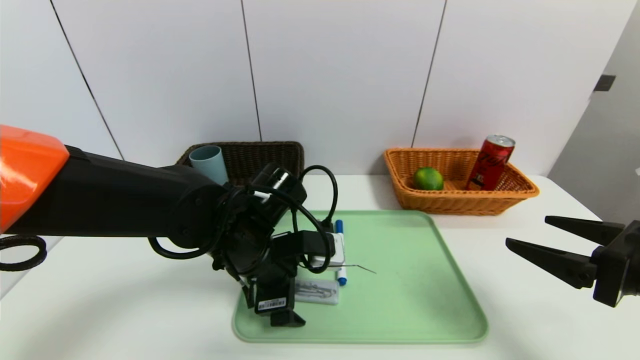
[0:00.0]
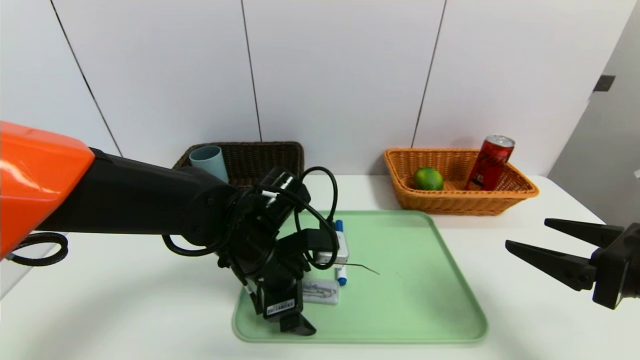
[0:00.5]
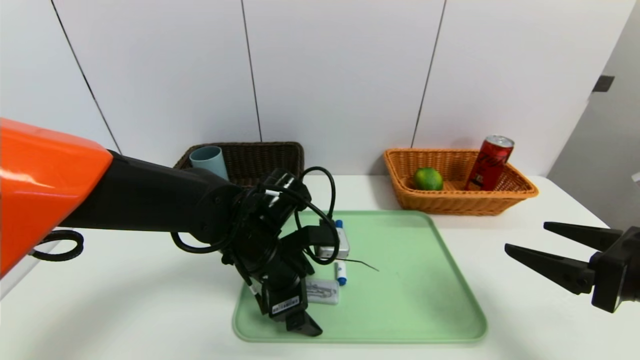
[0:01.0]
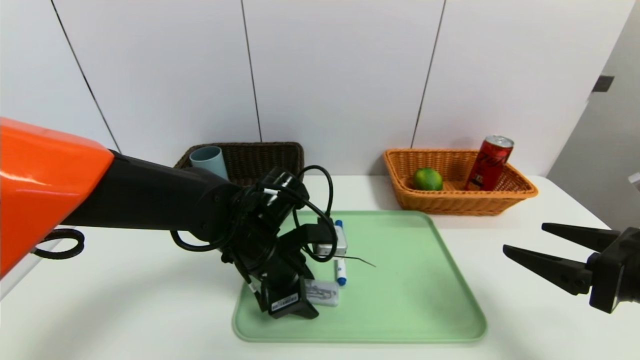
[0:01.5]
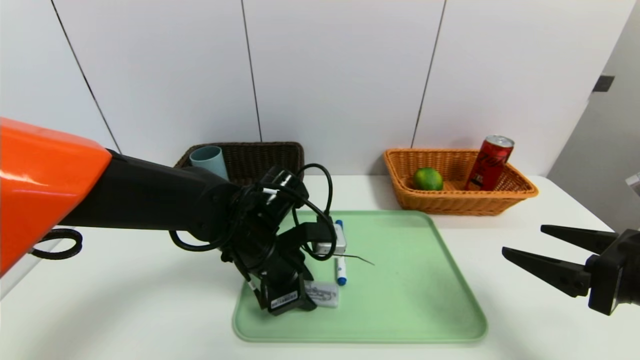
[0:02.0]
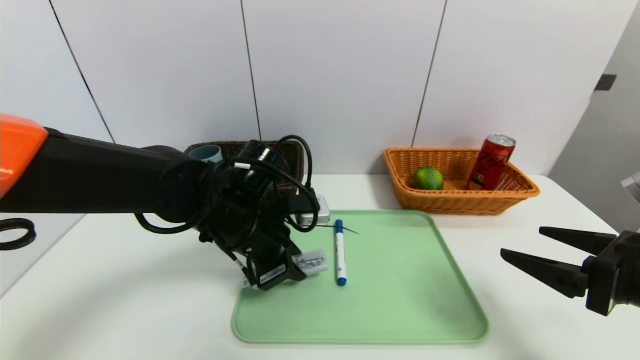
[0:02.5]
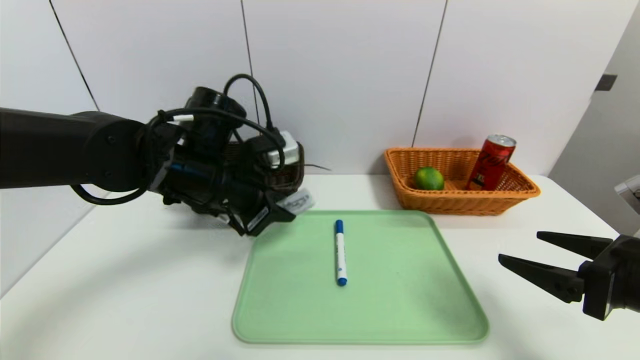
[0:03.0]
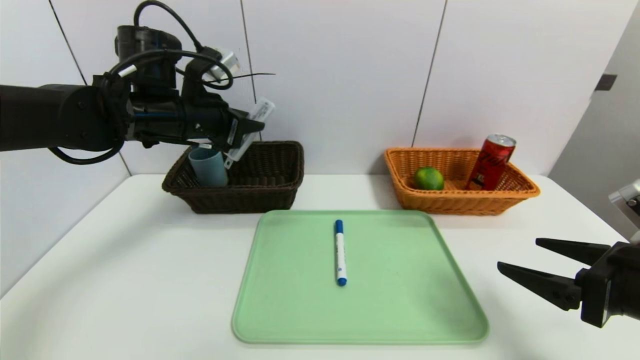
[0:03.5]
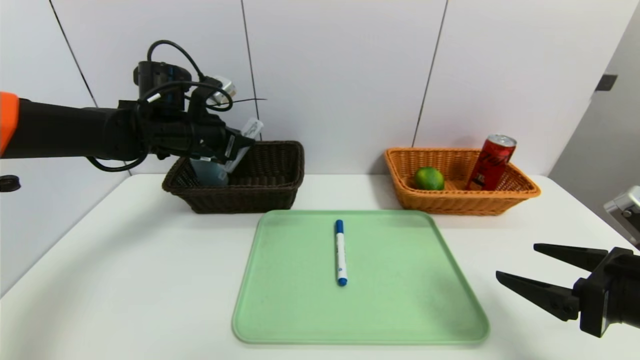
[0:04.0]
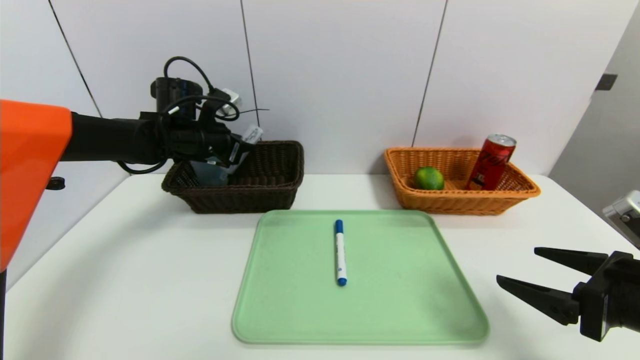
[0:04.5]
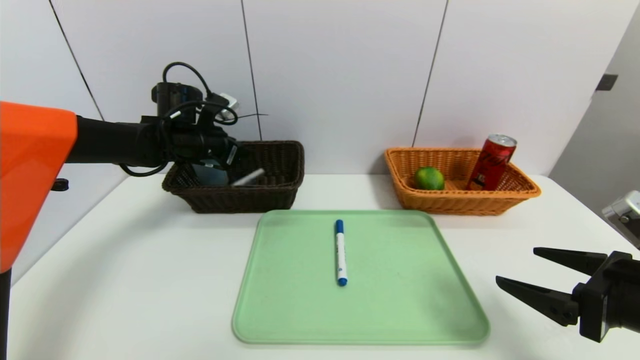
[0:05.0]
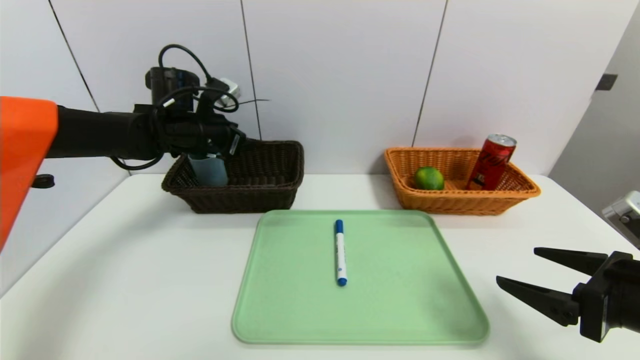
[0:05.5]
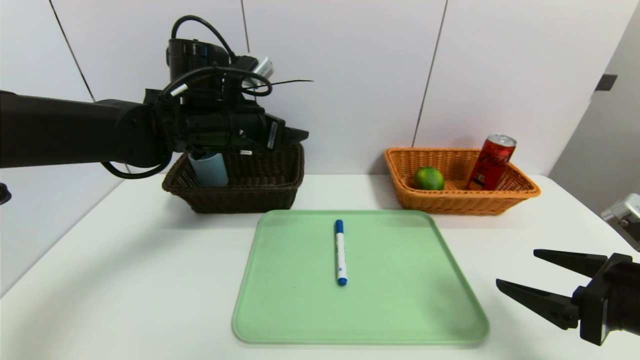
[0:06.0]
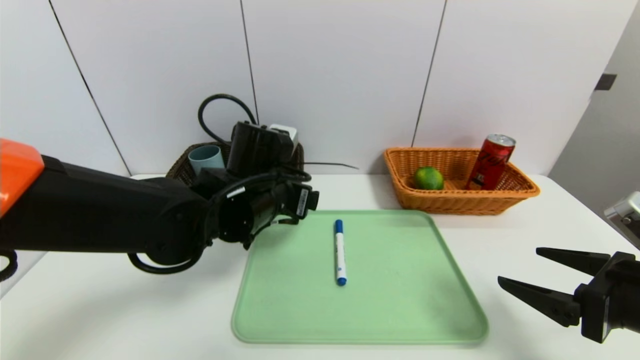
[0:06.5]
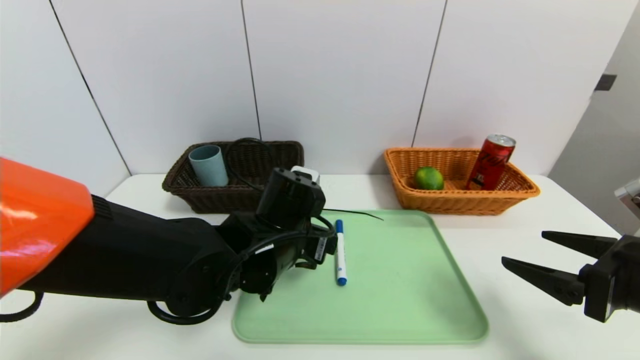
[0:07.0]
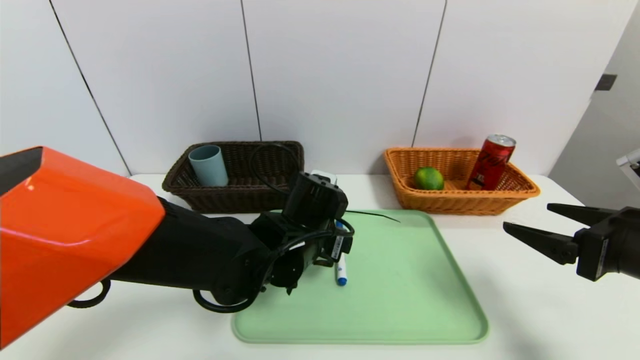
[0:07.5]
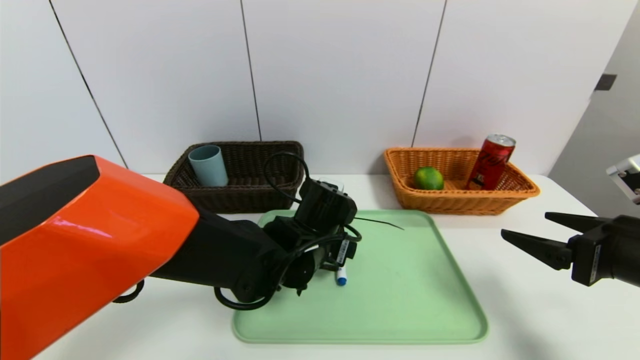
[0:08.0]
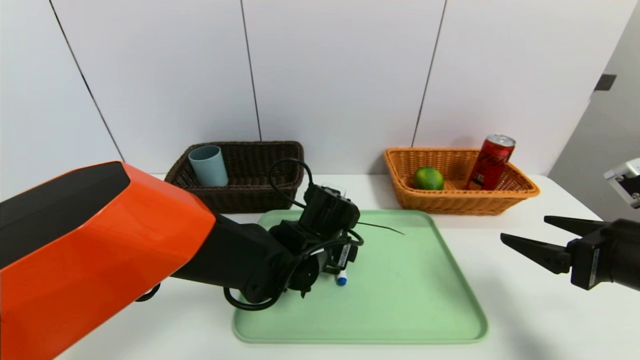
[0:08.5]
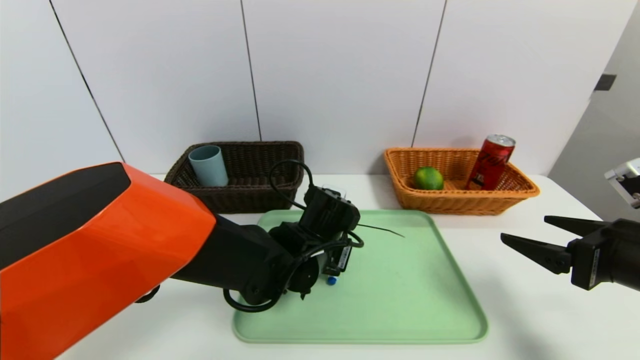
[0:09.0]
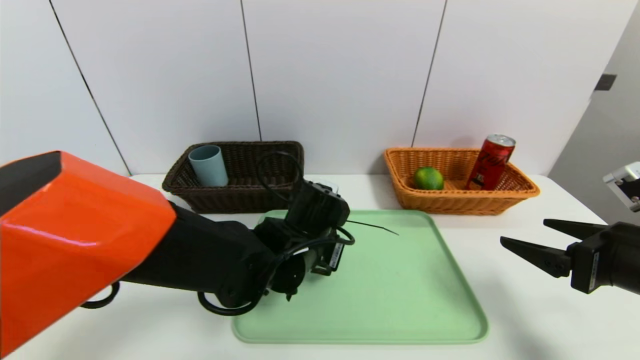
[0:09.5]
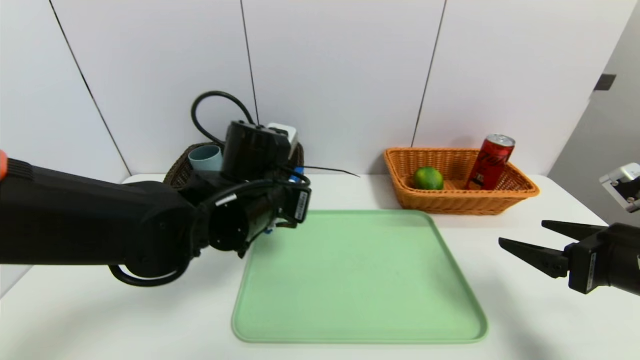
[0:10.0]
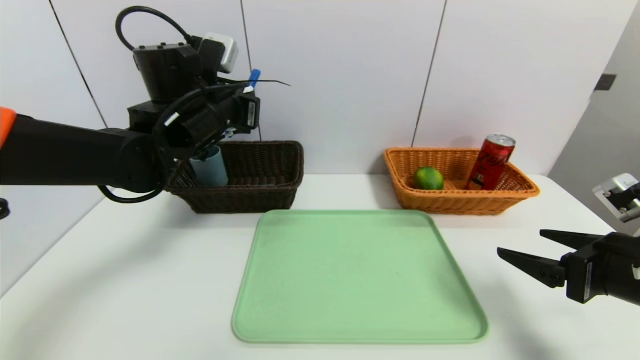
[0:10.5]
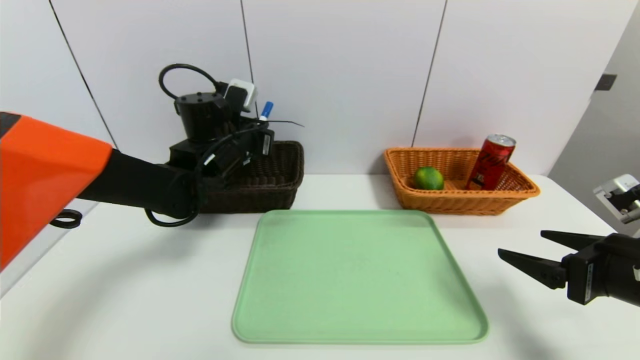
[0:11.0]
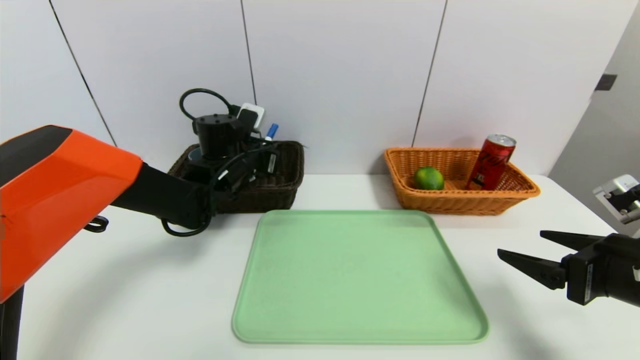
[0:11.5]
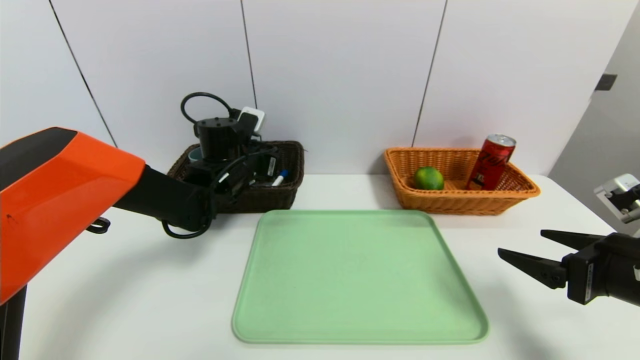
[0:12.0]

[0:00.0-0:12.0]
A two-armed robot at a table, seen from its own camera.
Task of the whole recording: place the food in the right basket with the right gripper, and place the non food items in the left basket with the left gripper.
Step, 0:00.0 to 0:05.5: Grasp the compass and put it in the left basket.
0:00.0 to 0:02.0: The left gripper closes its fingers.
0:02.0 to 0:04.0: The left gripper is displaced to the left, forward and upward by some 20 cm.
0:04.0 to 0:06.0: The left gripper moves to the right and backward, about 10 cm, and opens.
0:06.0 to 0:08.0: The left gripper goes approximately 20 cm downward, to the right and backward.
0:08.0 to 0:10.0: The left gripper shifts approximately 10 cm upward and to the left, and closes.
0:10.0 to 0:12.0: The left gripper is displaced forward and to the left by approximately 15 cm, and opens its fingers.

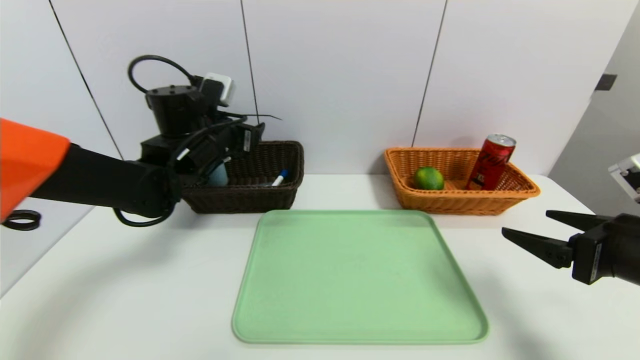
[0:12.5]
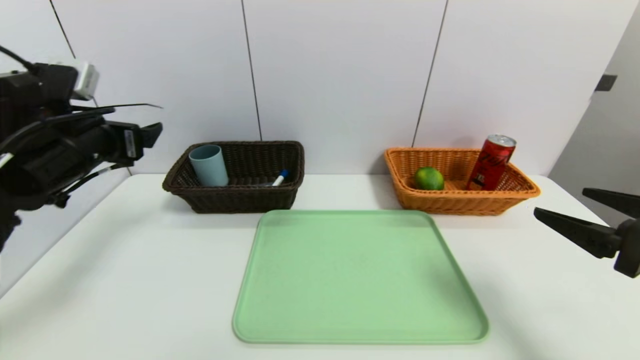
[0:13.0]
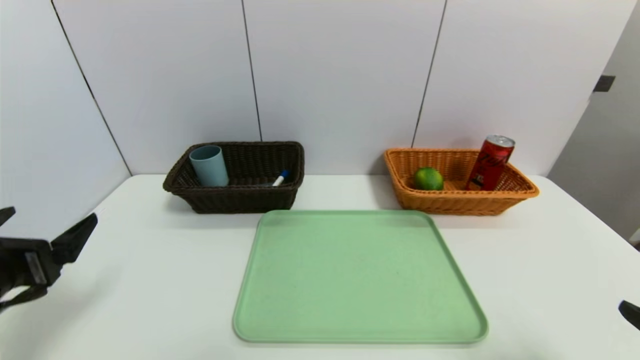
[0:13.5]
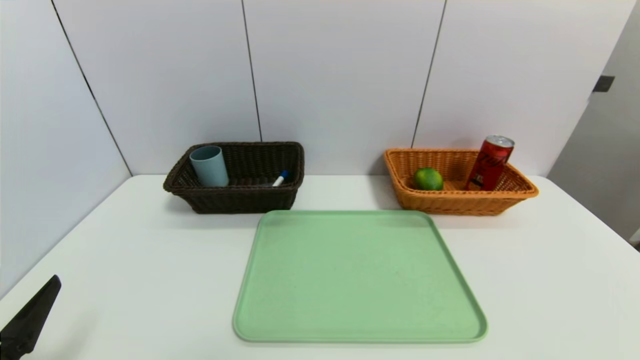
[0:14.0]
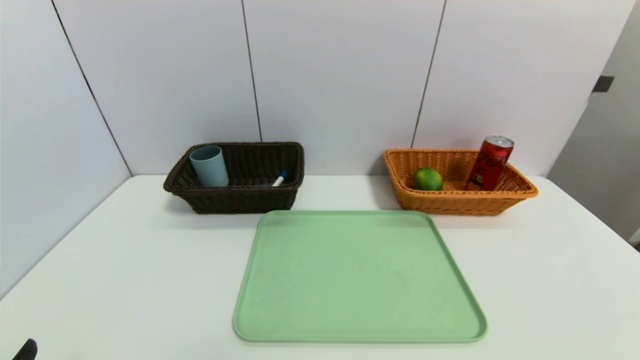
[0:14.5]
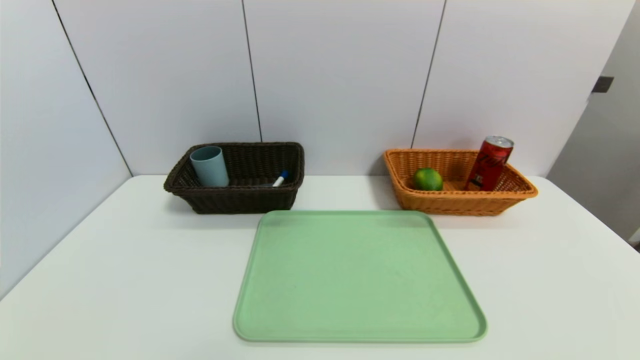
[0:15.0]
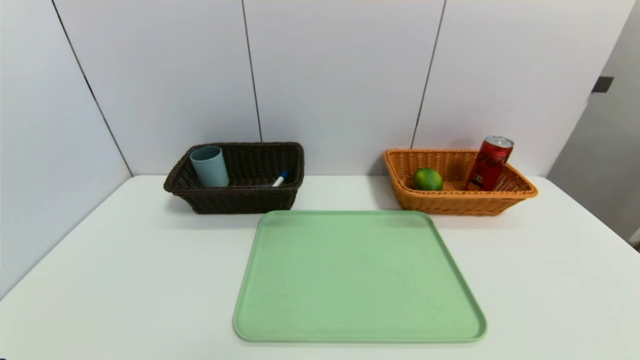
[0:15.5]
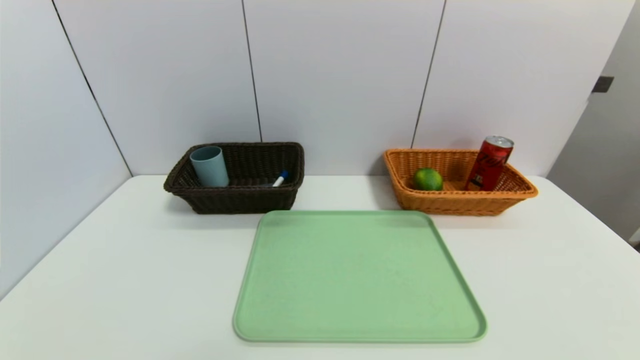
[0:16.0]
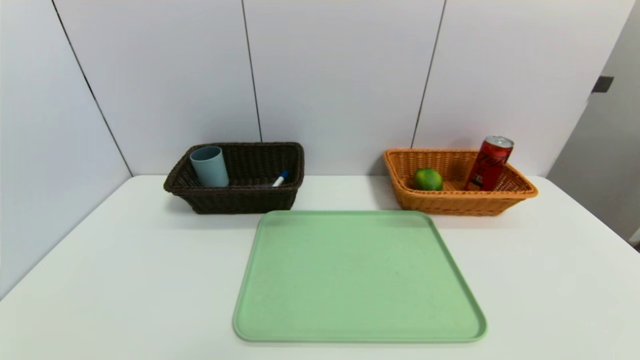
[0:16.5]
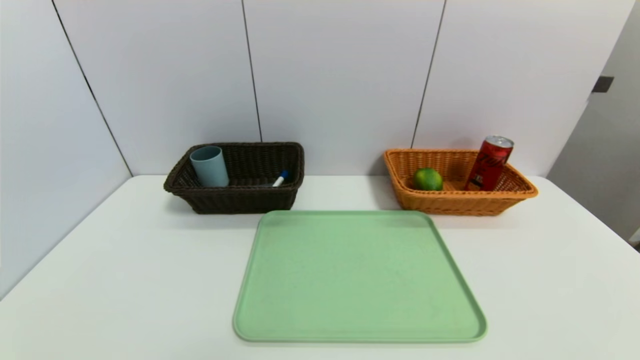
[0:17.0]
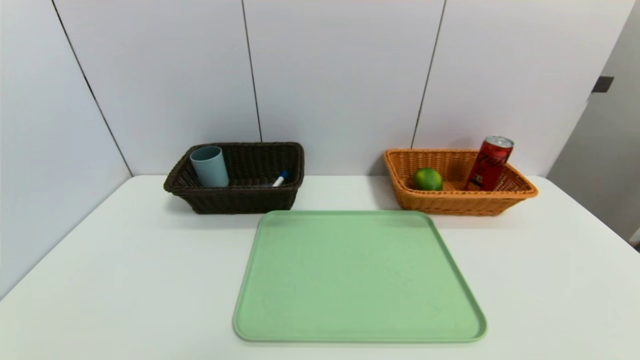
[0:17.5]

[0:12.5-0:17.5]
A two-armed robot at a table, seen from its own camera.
Task of the whole recording: place the food in the right basket with the right gripper, and place the non food items in the left basket with the left gripper.
0:12.5 to 0:15.0: The left gripper shifts approximately 40 cm backward. The right gripper moves backward, about 25 cm.
